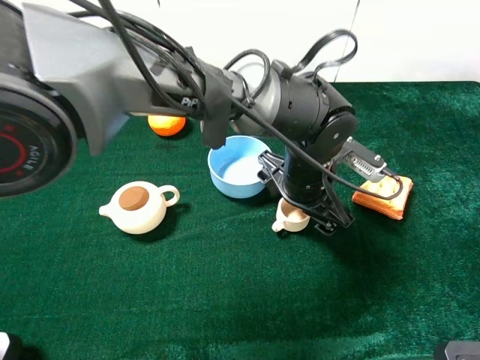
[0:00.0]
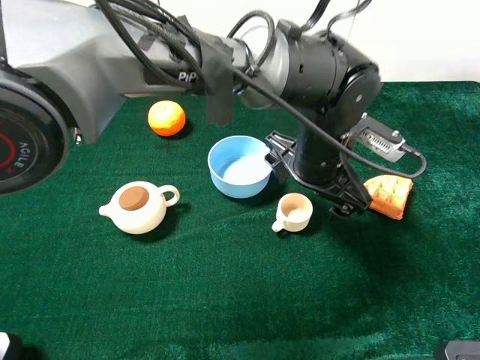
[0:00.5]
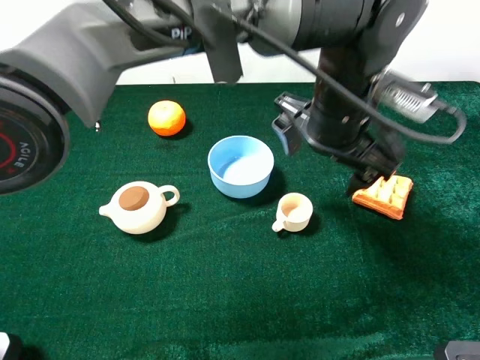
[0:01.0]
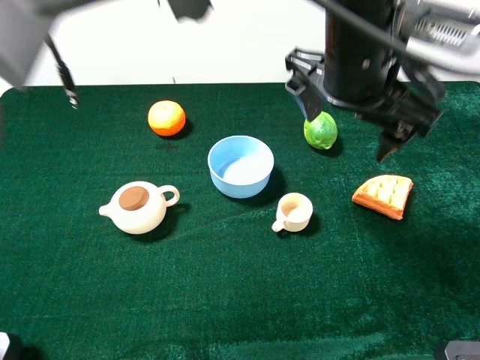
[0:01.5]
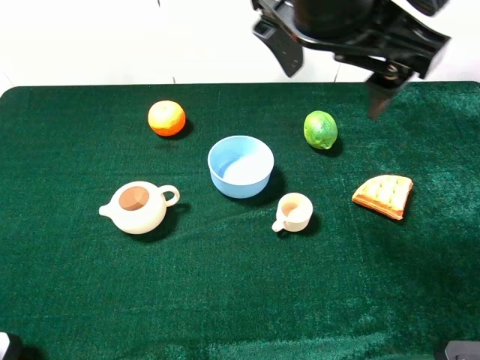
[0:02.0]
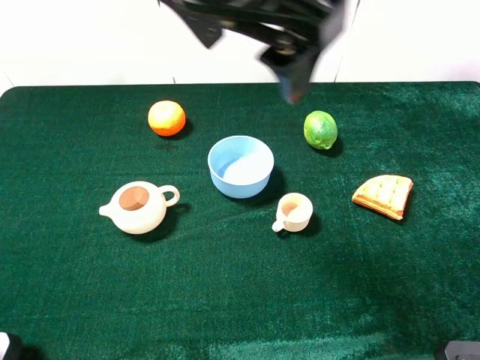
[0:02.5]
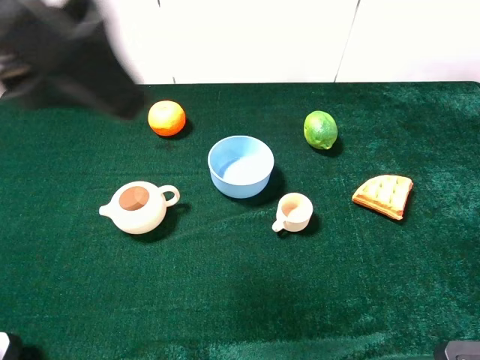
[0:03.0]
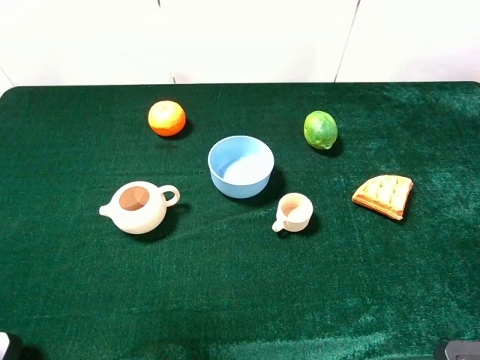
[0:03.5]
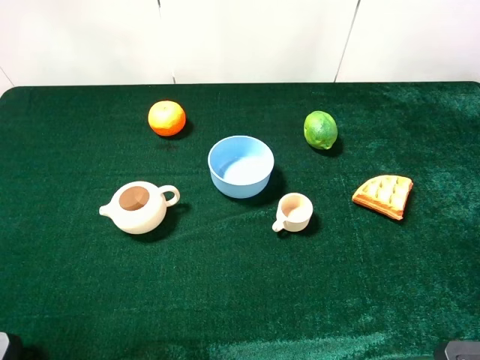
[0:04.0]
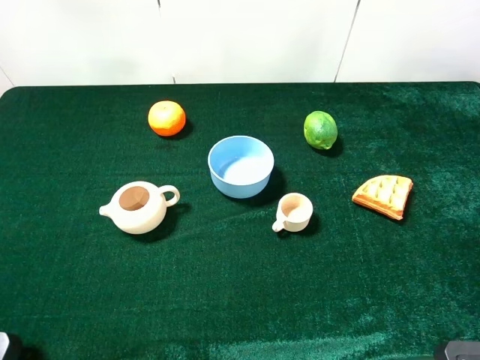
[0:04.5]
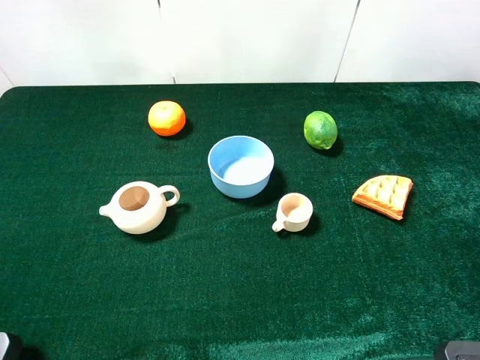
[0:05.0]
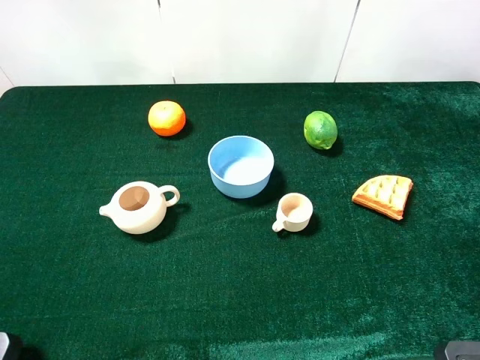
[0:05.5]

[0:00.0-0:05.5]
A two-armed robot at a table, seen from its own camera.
Task of the whole recording: the gripper move the object.
0:00.0 to 0:02.0: The left gripper shifts about 25 cm upward.
0:02.0 to 0:03.5: The left gripper heads to the left and backward, covering roughly 35 cm.
